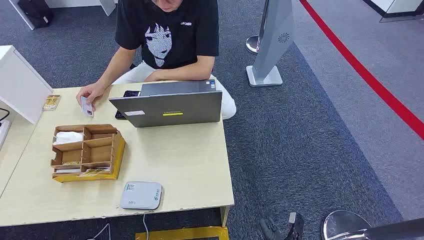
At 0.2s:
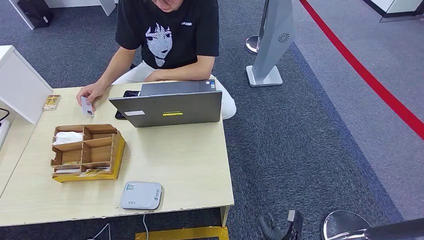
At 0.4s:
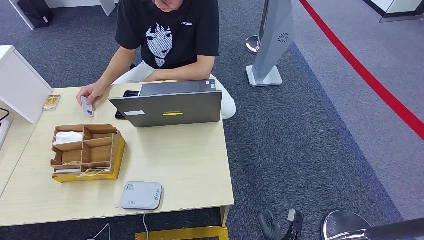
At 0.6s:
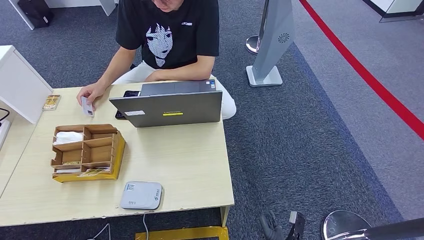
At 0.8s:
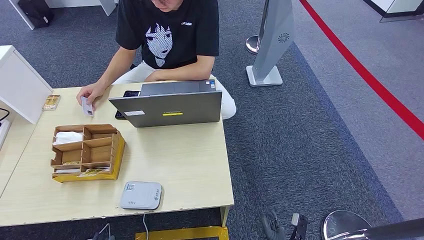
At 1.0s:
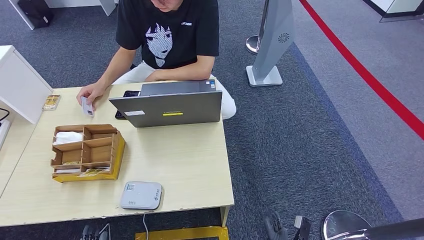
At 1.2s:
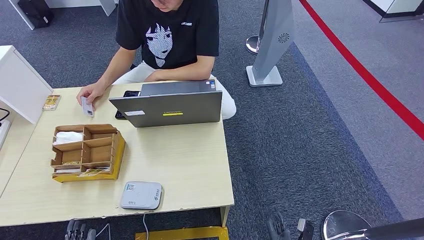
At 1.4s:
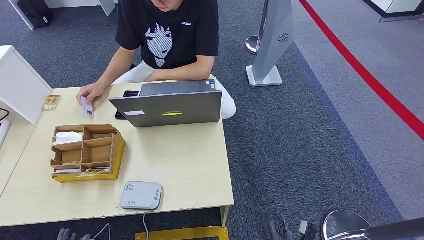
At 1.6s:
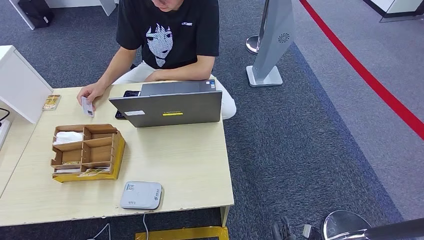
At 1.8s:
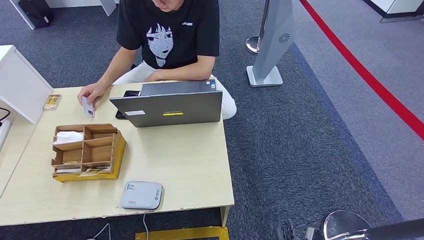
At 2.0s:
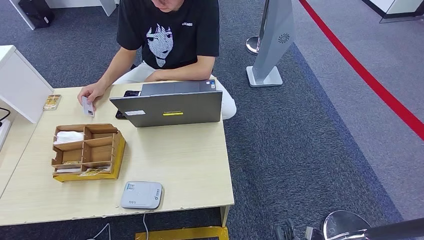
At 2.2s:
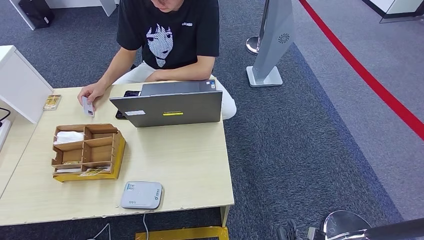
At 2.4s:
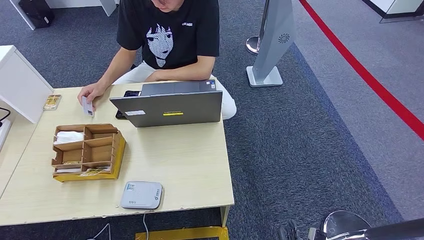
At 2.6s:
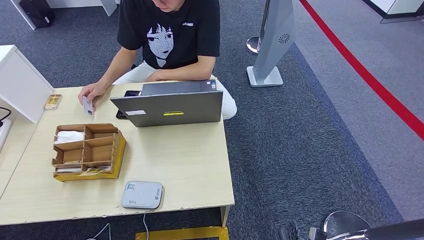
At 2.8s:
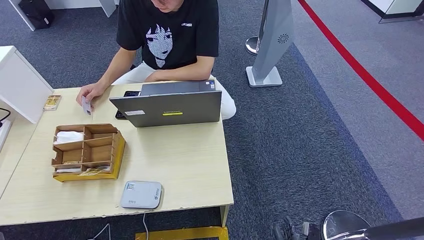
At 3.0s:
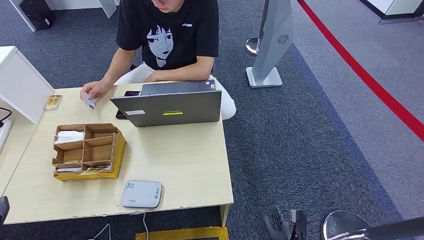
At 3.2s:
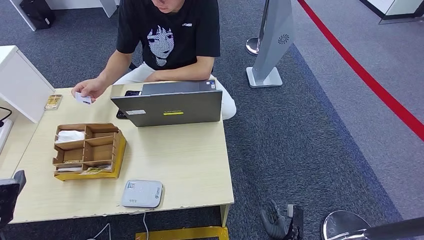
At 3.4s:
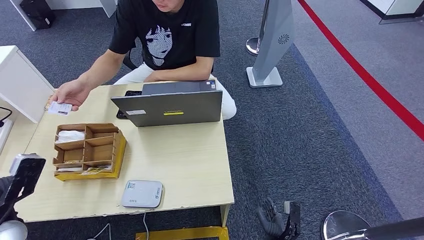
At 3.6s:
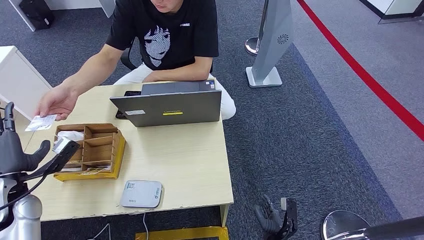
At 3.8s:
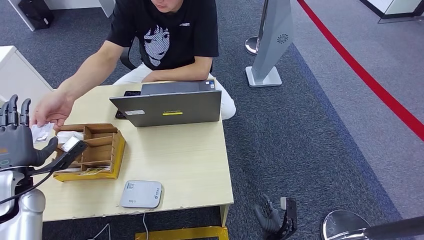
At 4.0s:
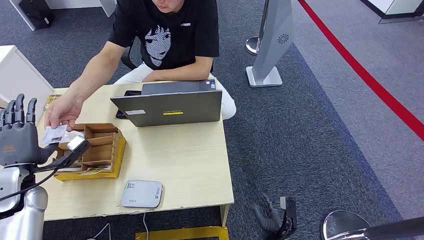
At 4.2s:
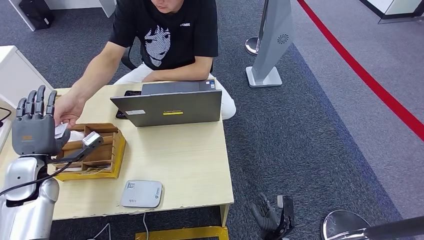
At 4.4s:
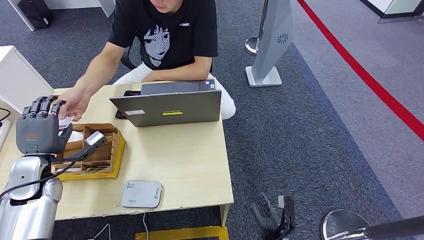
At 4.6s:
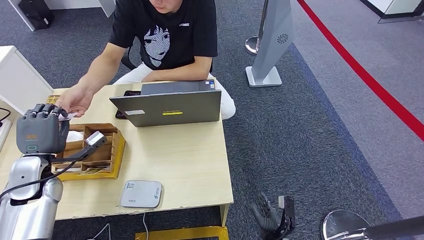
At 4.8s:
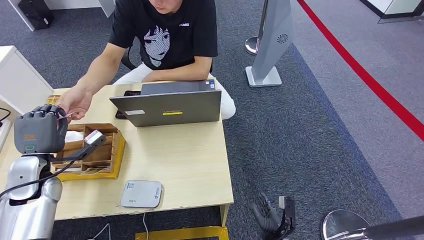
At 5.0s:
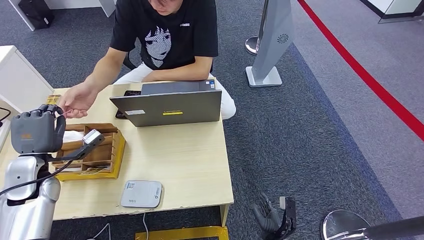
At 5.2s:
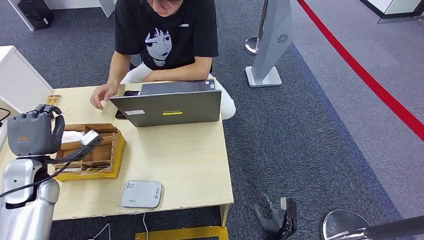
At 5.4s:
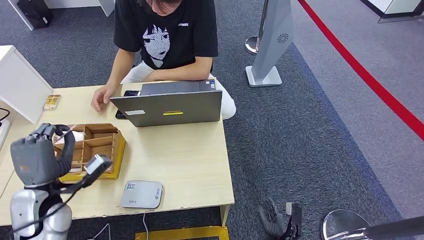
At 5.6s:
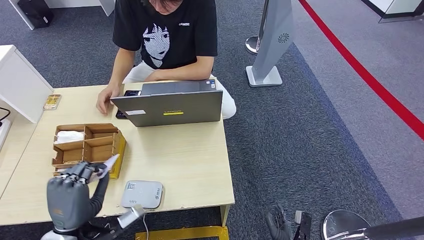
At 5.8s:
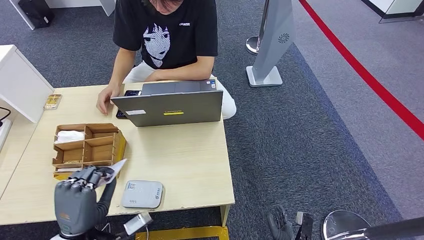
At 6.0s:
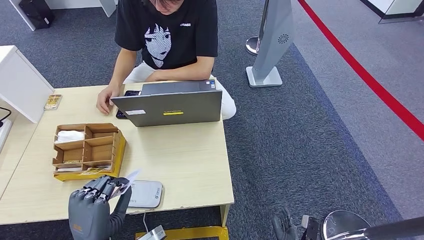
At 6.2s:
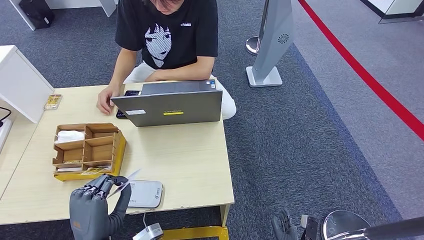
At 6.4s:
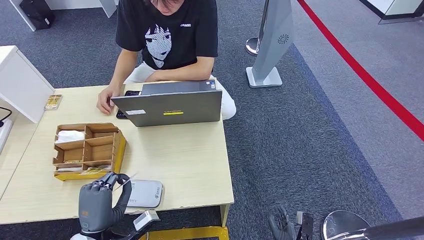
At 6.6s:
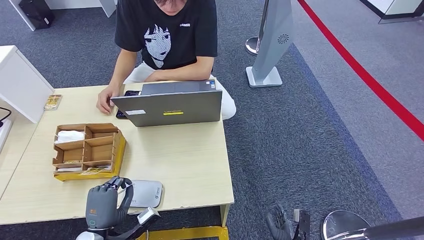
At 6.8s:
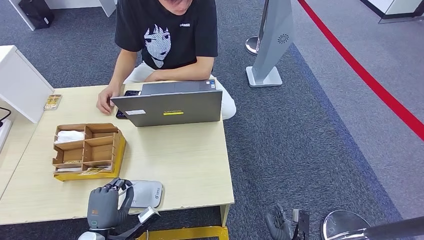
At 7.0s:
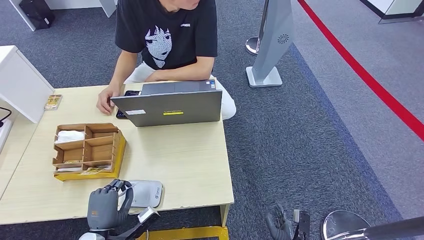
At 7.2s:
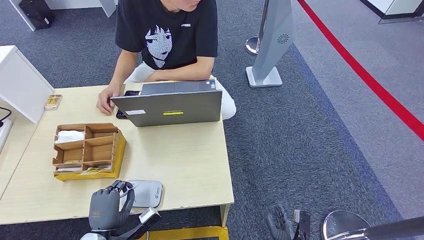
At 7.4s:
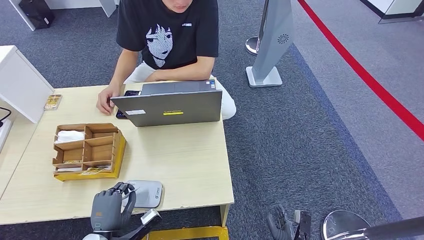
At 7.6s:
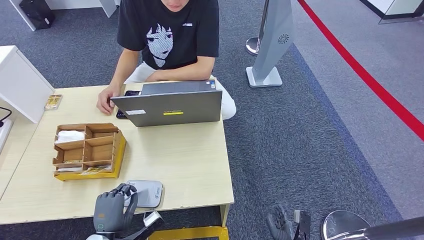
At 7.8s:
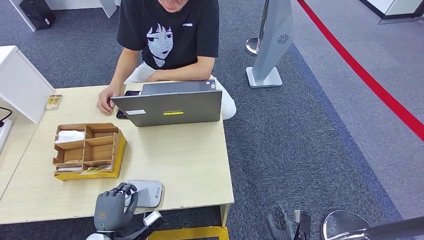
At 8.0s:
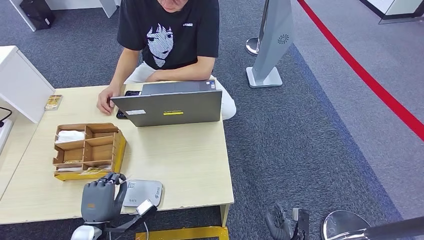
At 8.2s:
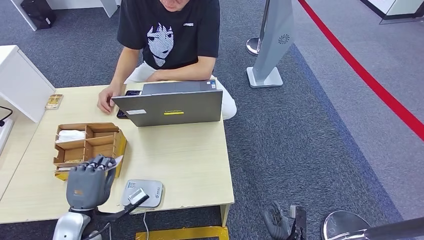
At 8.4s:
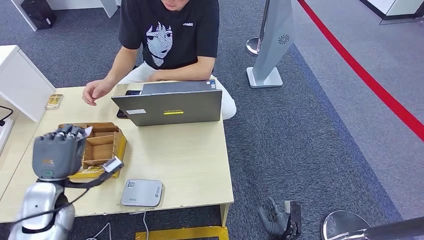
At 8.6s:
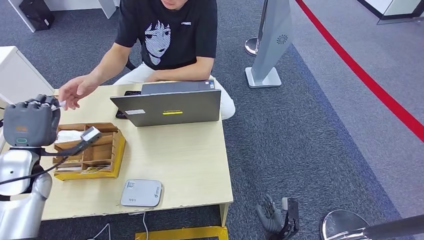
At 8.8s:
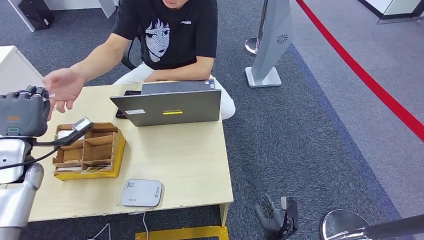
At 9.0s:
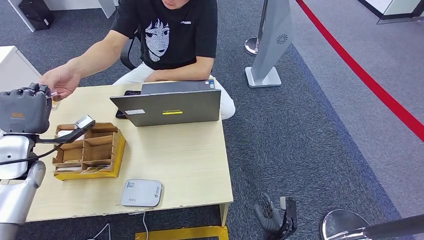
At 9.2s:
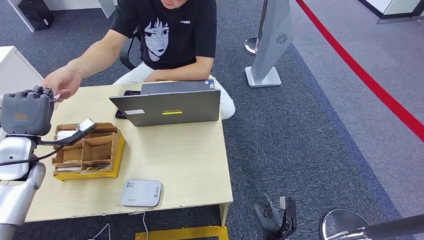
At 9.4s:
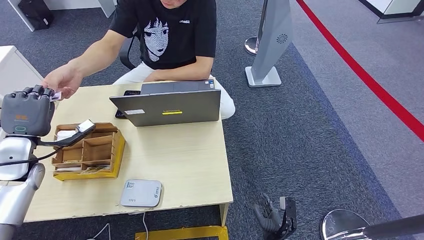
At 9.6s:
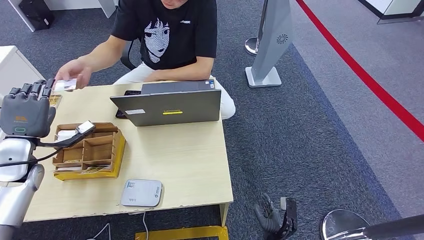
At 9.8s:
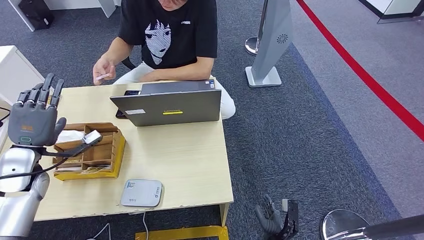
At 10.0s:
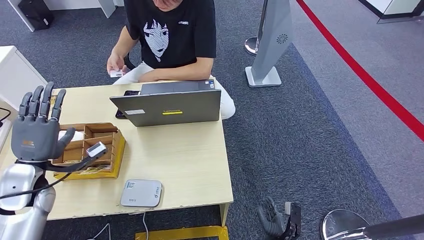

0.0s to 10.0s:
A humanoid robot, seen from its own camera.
Step, 0.0s to 5.0s: Take the ID card from the person's hand.
Step, 5.2s to 8.0s: Place the ID card on the card reader.
Step, 8.4s to 10.0s: Hand the ID card to the person.
1.4s to 2.8s: The left hand is displaced upward and to the left by about 15 cm.
2.8s to 4.2s: The right hand goes approximately 10 cm forward. The left hand is displaced forward by approximately 25 cm.
4.2s to 5.8s: The left hand heads backward and to the right, covering about 20 cm.
5.8s to 7.2s: The left hand goes about 10 cm downward.
7.2s to 8.6s: The left hand heads upward, forward and to the left, covering roughly 25 cm.
8.6s to 10.0s: The hands stay close to where they were, moving slightly.

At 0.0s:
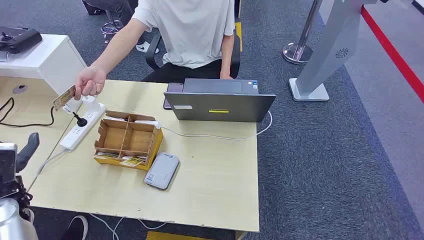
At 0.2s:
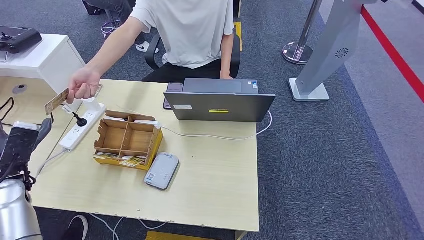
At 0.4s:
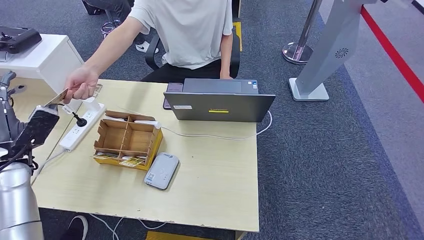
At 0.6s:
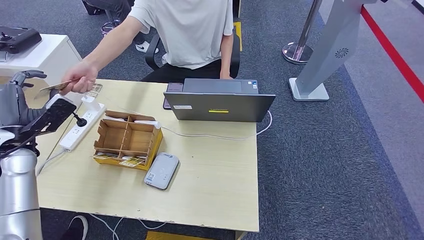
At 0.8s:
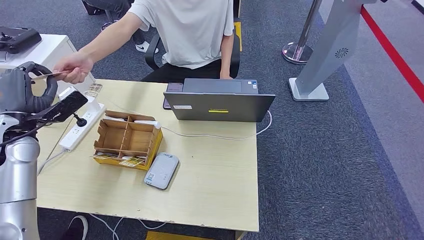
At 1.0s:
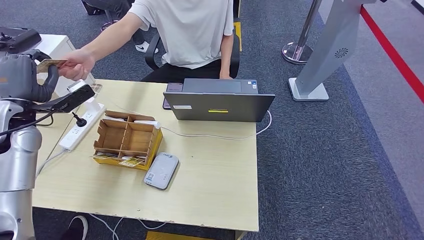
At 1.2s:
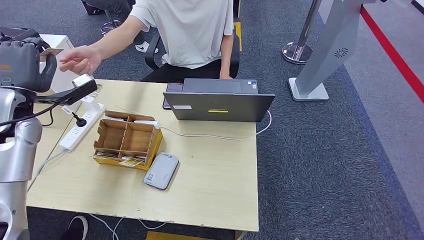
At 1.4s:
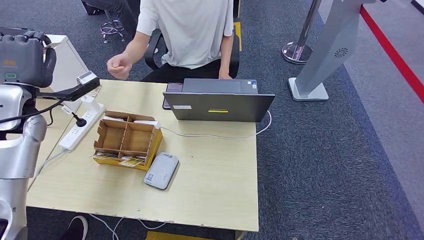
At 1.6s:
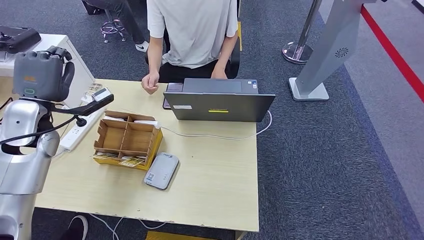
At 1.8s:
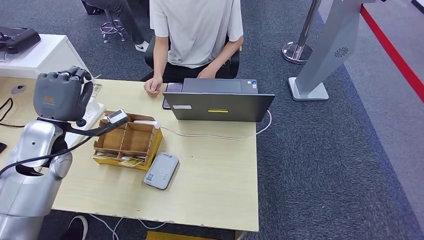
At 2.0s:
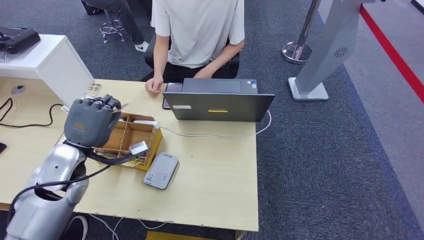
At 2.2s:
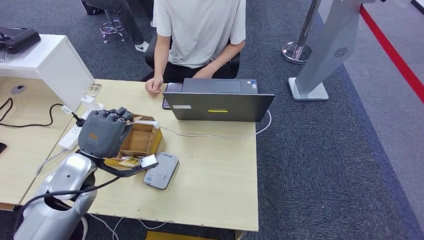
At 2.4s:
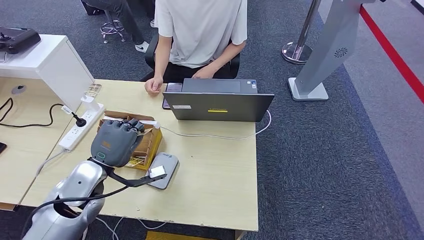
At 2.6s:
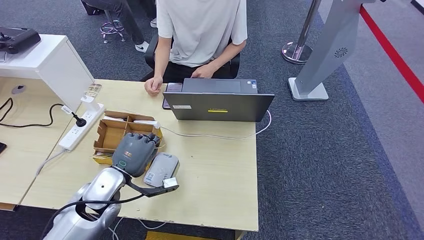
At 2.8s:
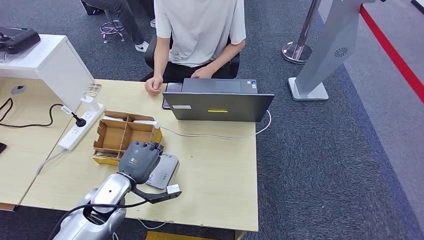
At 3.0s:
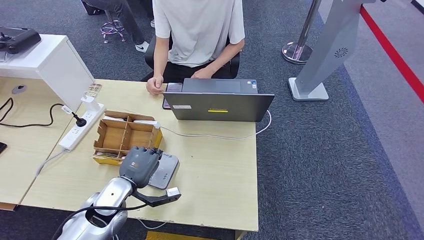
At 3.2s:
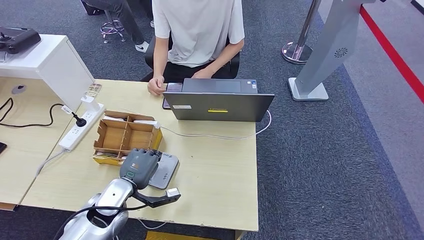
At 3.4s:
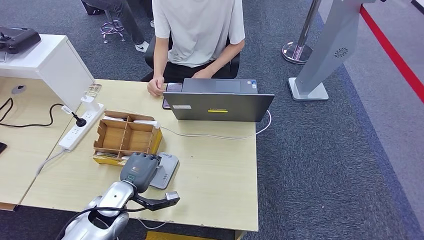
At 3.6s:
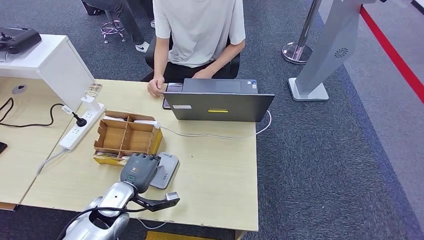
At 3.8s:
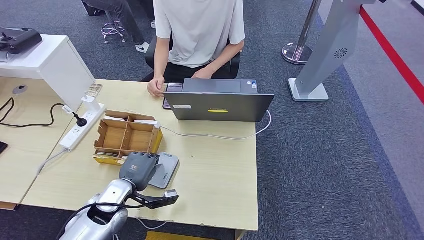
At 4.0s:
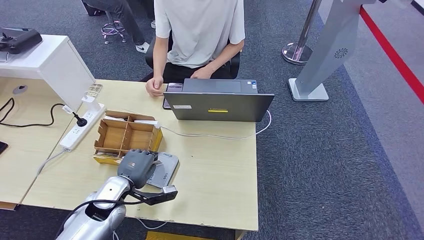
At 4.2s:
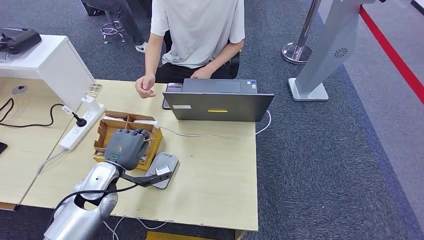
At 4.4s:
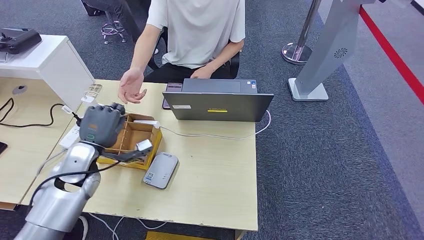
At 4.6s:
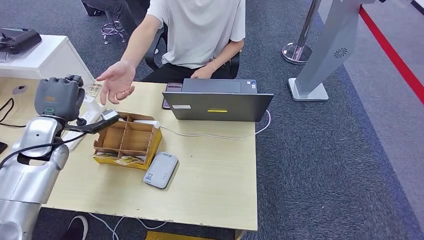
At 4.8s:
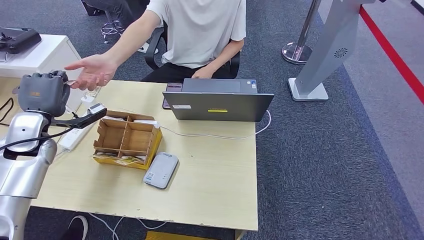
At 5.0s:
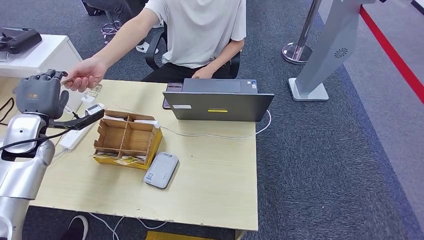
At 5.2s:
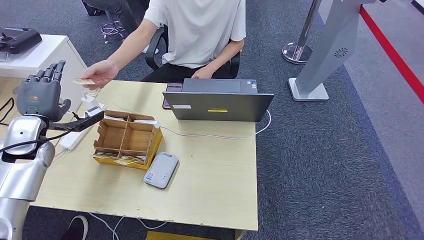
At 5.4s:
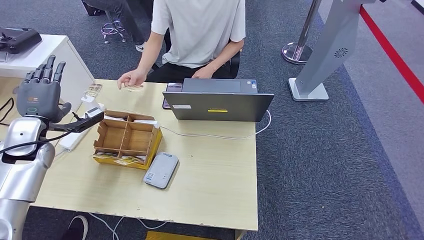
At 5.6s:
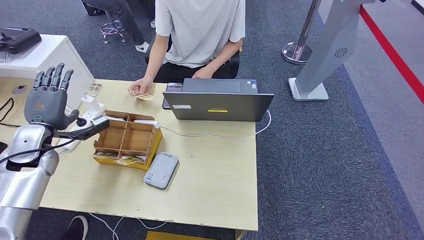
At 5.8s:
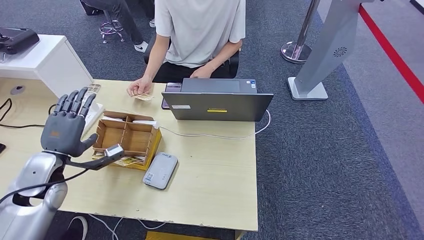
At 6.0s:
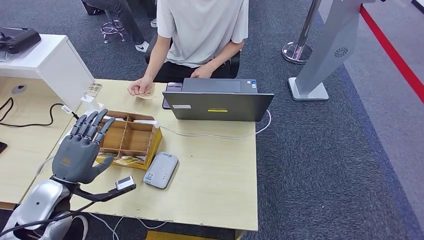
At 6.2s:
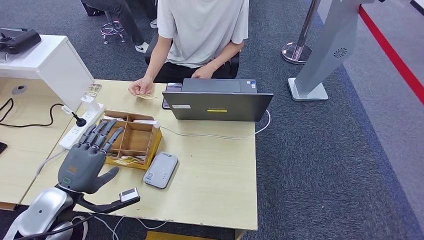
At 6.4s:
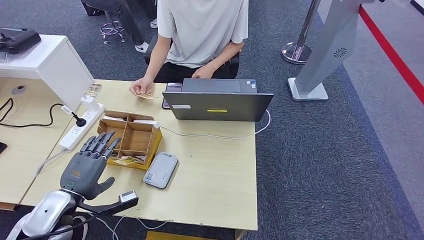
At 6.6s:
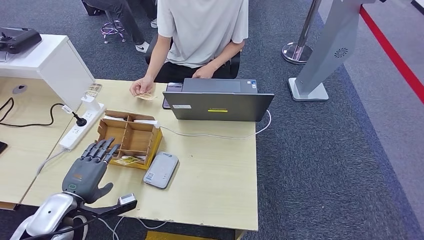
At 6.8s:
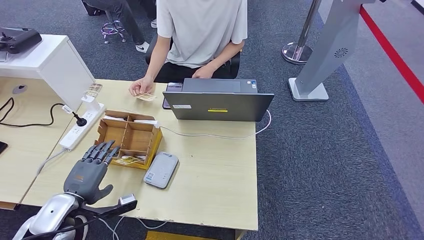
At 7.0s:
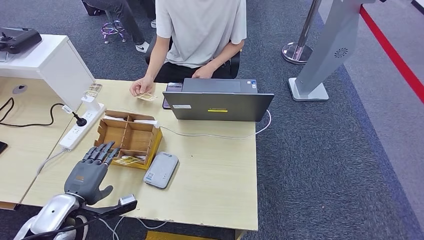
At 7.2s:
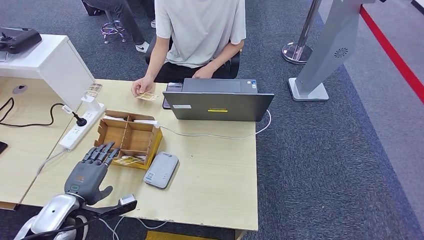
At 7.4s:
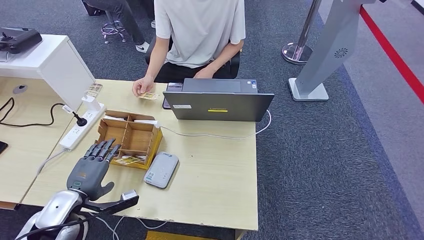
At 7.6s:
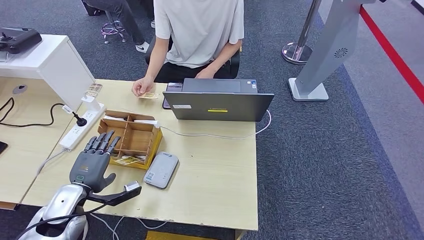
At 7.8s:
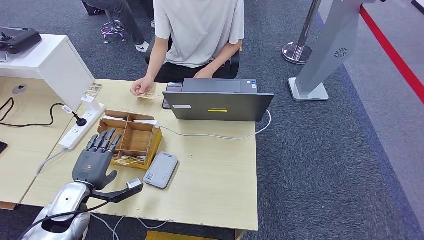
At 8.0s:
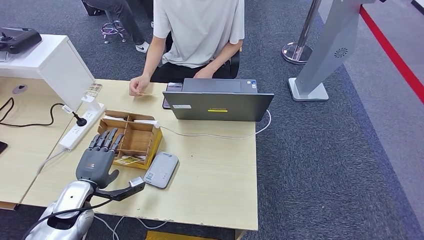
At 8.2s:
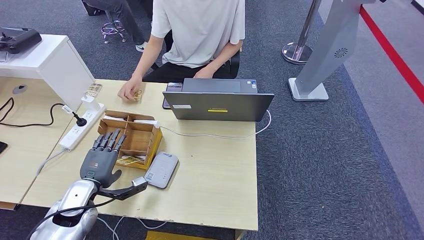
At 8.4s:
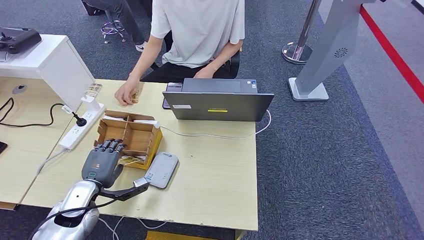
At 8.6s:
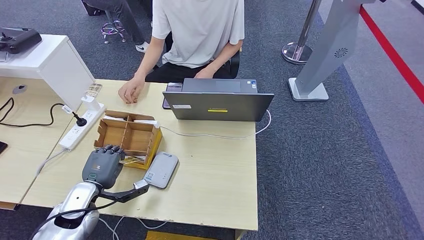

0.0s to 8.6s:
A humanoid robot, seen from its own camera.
Step, 0.0s to 1.8s: Take the ID card from the person's hand.
Step, 2.2s to 4.0s: Place the ID card on the card reader.
Step, 4.2s to 5.8s: Hand the ID card to the person.
1.4s to 2.8s: The left hand is displaced downward, to the right and backward by roughly 30 cm.
2.8s to 4.4s: The left hand travels to the left and forward by approximately 10 cm.
4.4s to 5.8s: The left hand moves to the left, approximately 5 cm.
5.8s to 7.2s: The left hand heads backward and downward, covering approximately 10 cm.
7.2s to 8.6s: The left hand changes place by about 5 cm.
